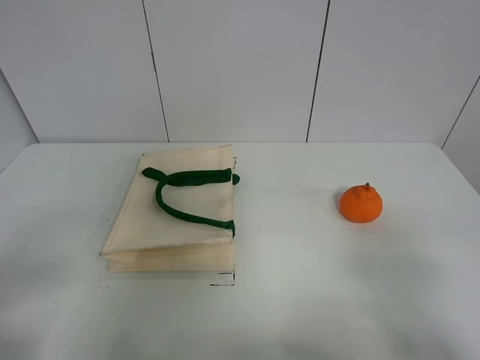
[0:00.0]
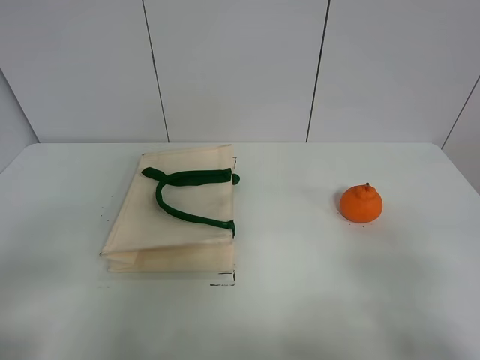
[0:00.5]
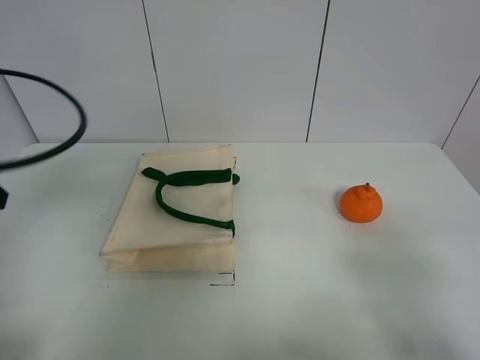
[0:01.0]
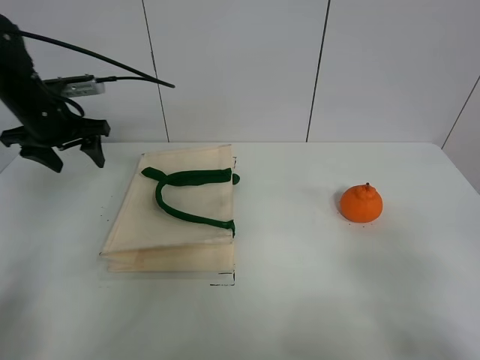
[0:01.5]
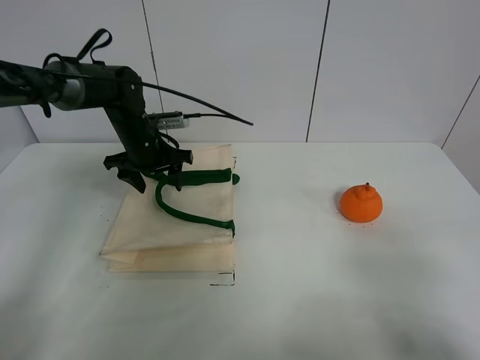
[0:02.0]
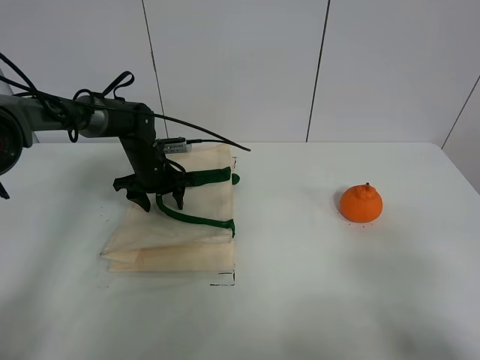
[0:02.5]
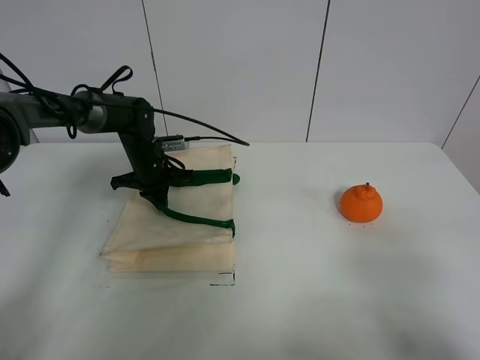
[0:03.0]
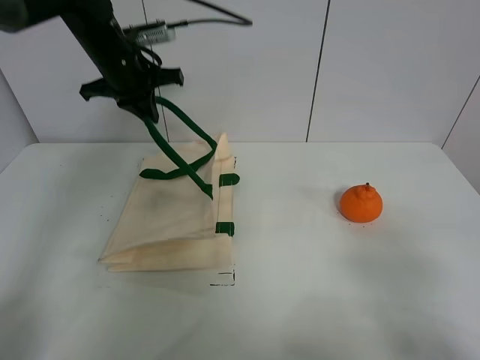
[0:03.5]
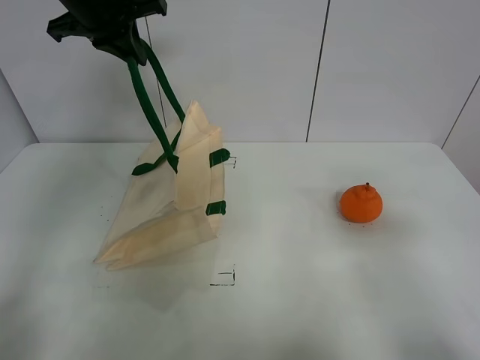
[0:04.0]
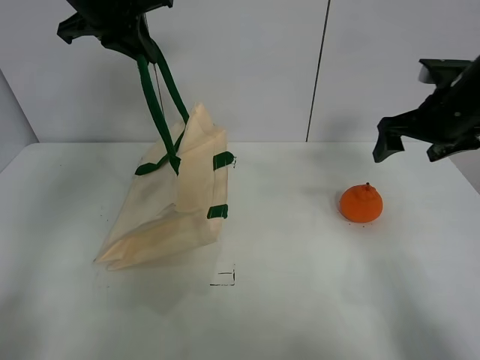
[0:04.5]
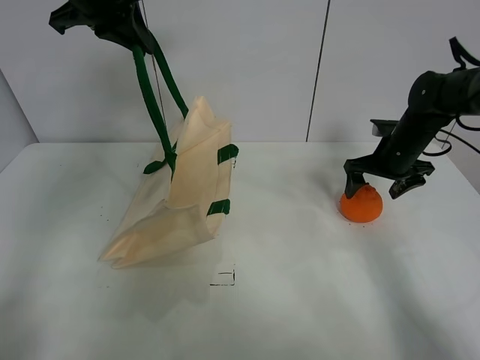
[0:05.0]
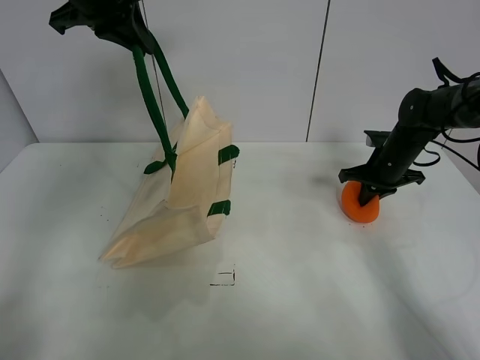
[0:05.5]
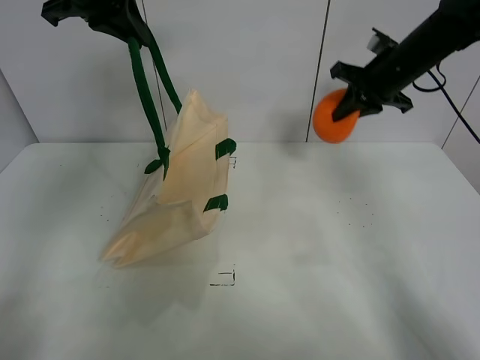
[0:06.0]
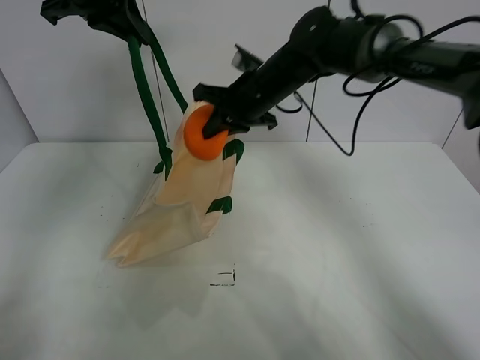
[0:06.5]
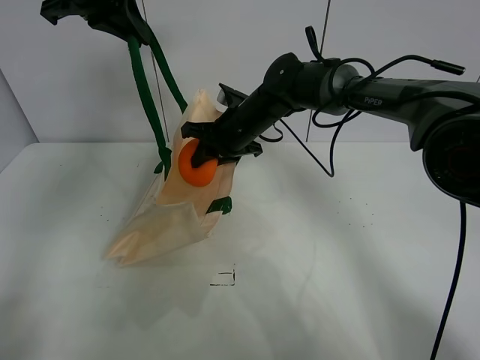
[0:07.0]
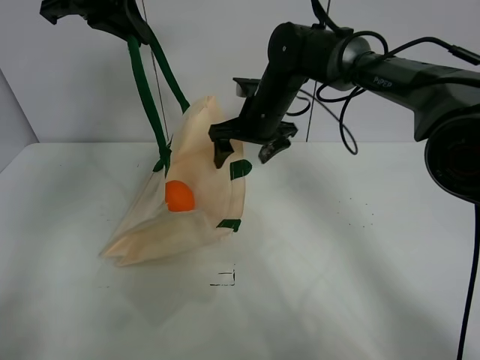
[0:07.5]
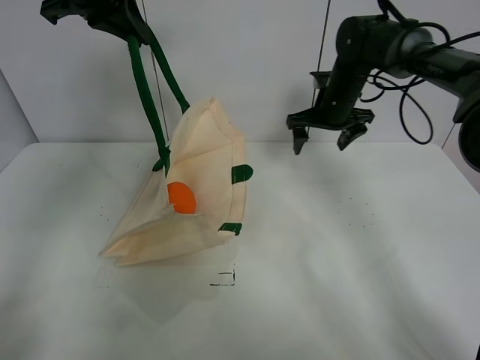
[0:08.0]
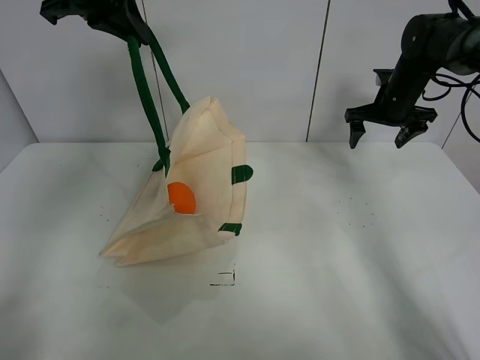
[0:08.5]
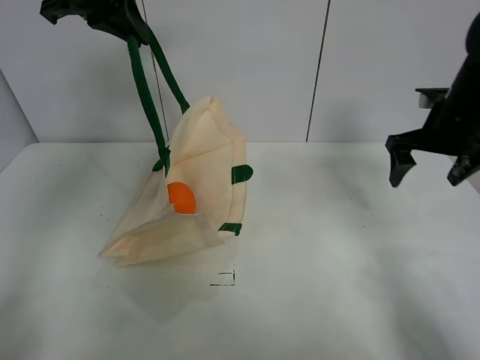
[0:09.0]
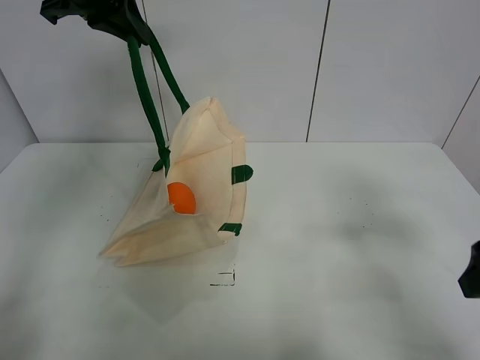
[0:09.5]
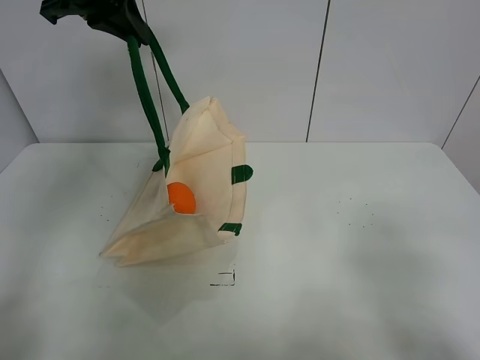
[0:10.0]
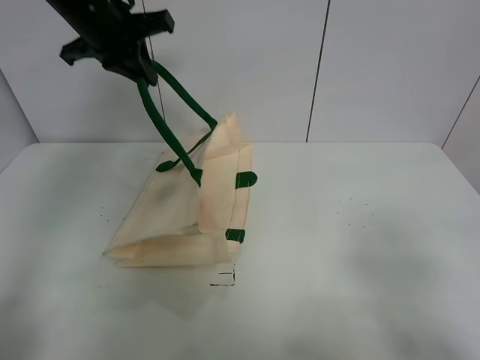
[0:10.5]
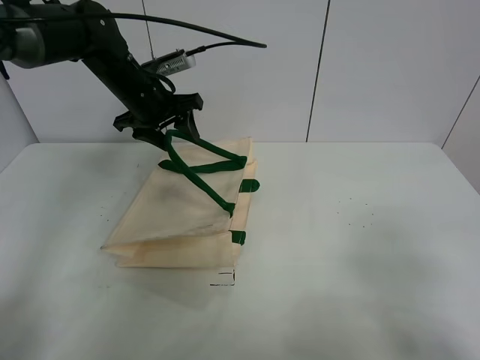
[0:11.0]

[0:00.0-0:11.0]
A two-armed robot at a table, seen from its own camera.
Task of the whole recording: open the white linen bag and put the orange in the bag.
Step, 0:00.0 to 0:03.5: Lift the handbag with left gripper.
Step, 0:04.0 to 0:05.0: Grasp the orange with right gripper.
Step, 0:05.5 to 0:07.0: Place the orange in the handbag with right gripper.
0:00.0 to 0:02.0: The left gripper shifts roughly 40 cm forward.
0:02.0 to 0:03.5: The left gripper is displaced upward by some 15 cm, and closes up.
0:03.5 to 0:05.5: The left gripper shifts some 10 cm upward. The right gripper is displaced forward by roughly 40 cm, and closes.
0:05.5 to 0:07.5: The right gripper is displaced to the left and upward by roughly 25 cm, and opens its fingers.
0:07.5 to 0:09.0: The right gripper goes about 25 cm to the right.
0:09.0 to 0:11.0: The right gripper goes approximately 35 cm backward. Meanwhile the left gripper shifts about 15 cm downward, and opens up.

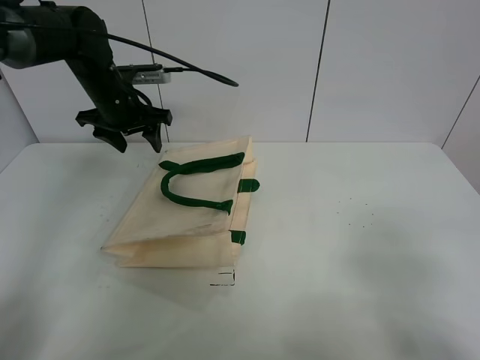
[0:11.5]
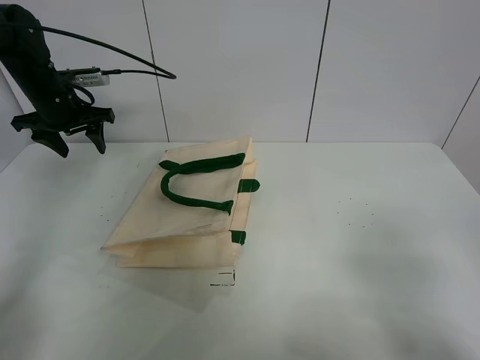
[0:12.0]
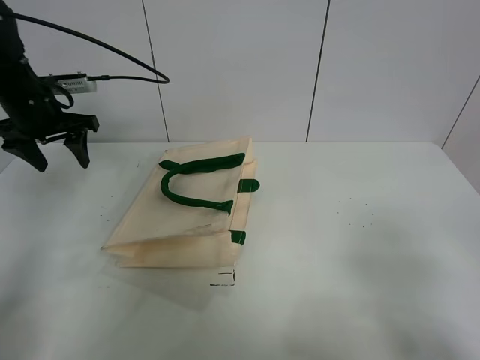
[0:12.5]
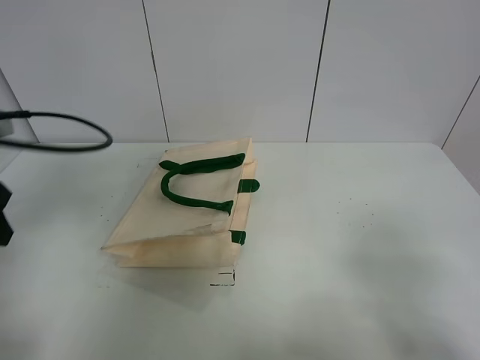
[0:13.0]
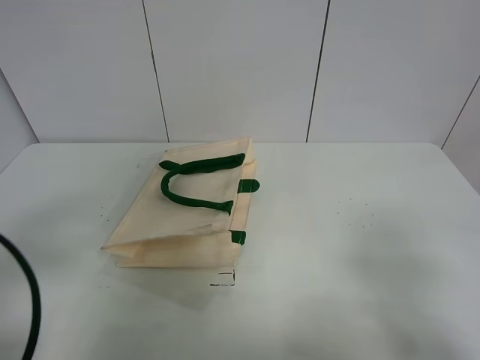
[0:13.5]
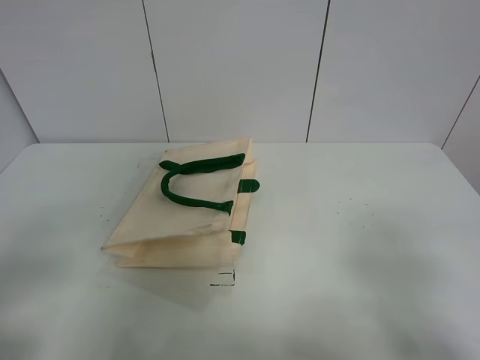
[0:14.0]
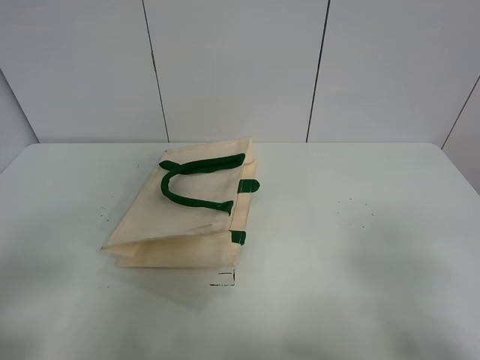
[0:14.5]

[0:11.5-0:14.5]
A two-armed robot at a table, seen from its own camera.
Task of the whole recording: open the white linen bag and put the orange in the bag.
0:11.5 to 0:13.0: The left gripper travels backward by roughly 25 cm.
0:13.0 to 0:14.5: The left gripper shifts approximately 20 cm backward.

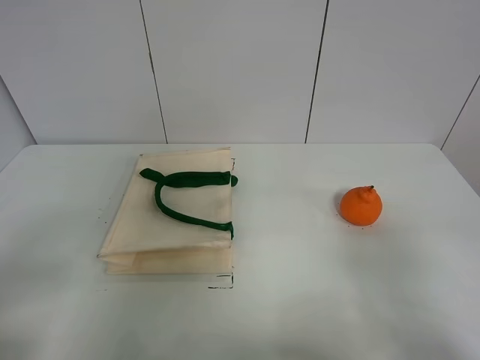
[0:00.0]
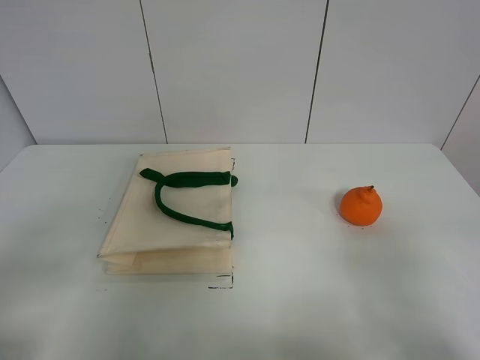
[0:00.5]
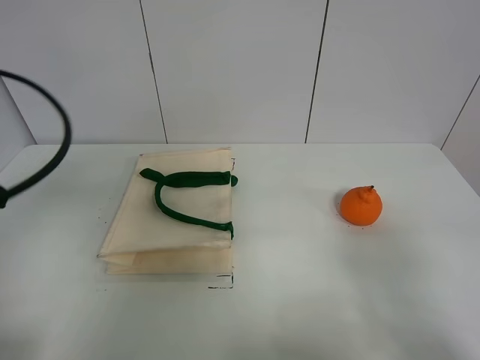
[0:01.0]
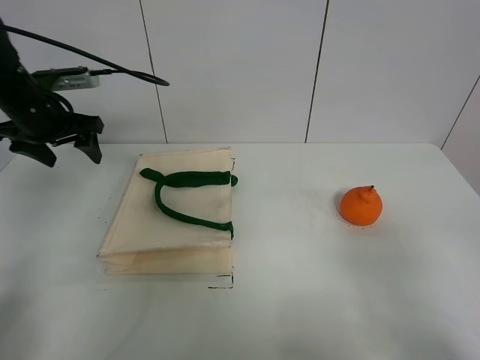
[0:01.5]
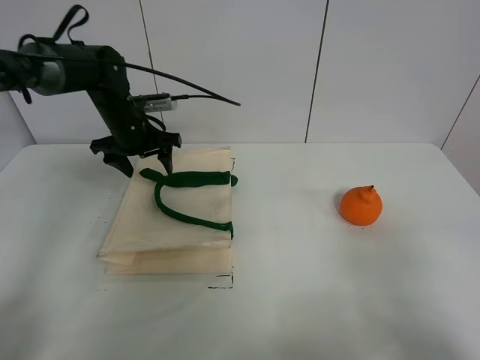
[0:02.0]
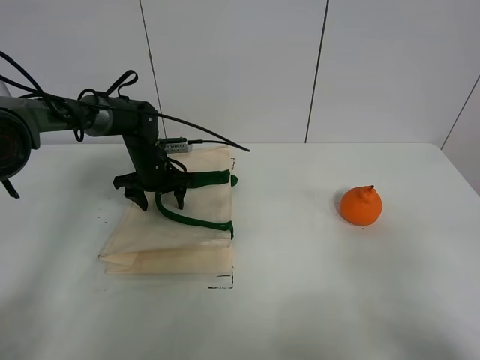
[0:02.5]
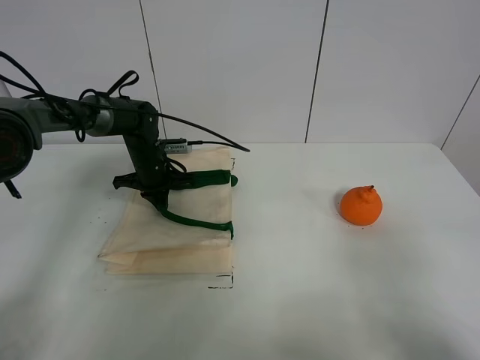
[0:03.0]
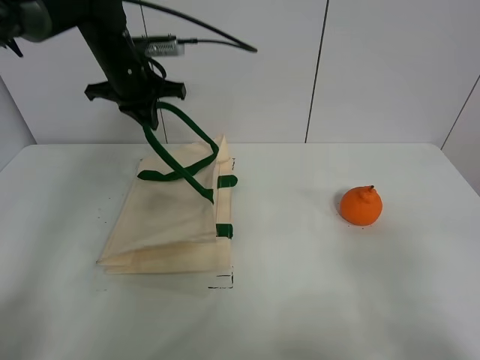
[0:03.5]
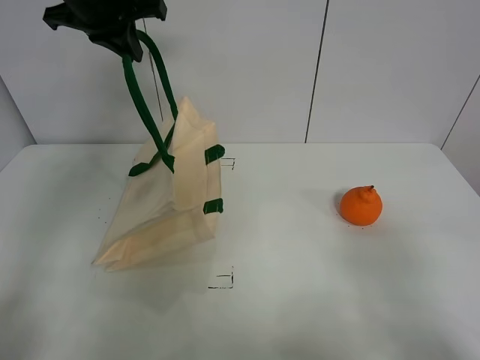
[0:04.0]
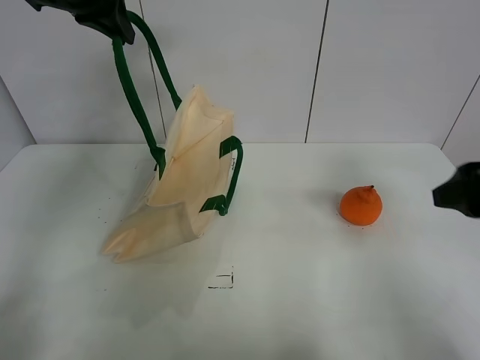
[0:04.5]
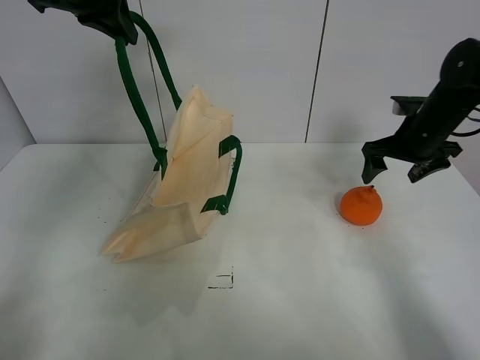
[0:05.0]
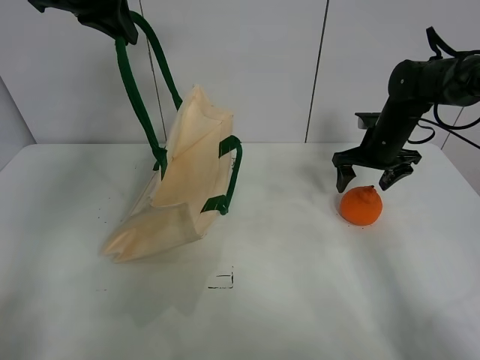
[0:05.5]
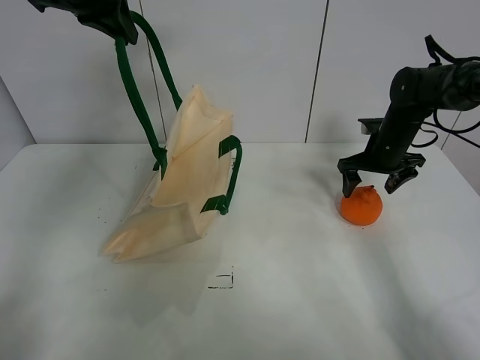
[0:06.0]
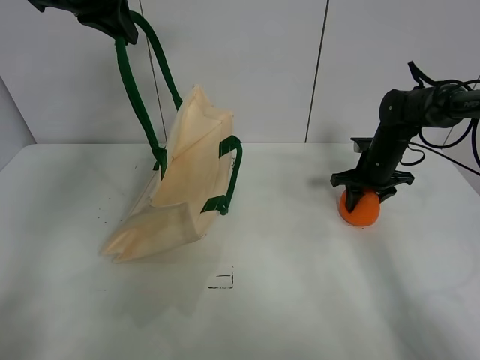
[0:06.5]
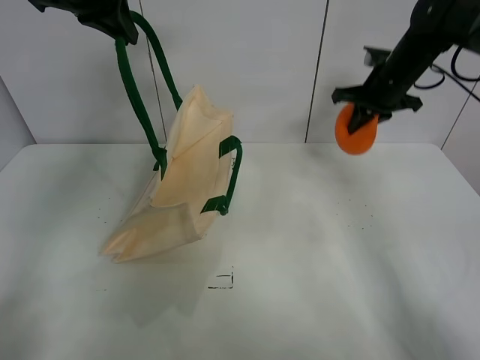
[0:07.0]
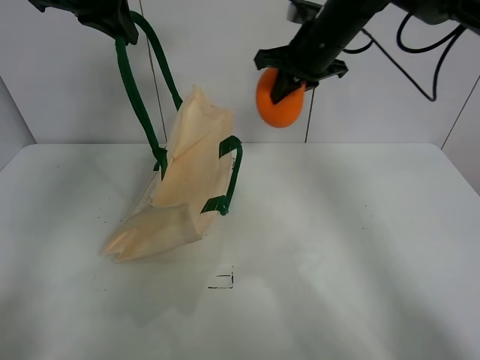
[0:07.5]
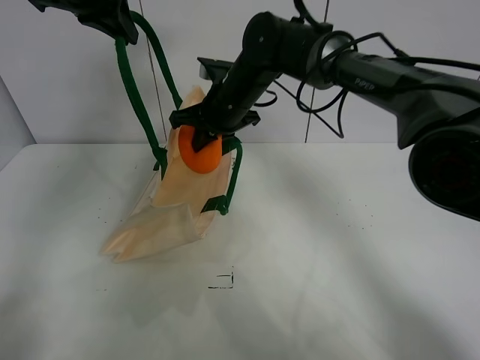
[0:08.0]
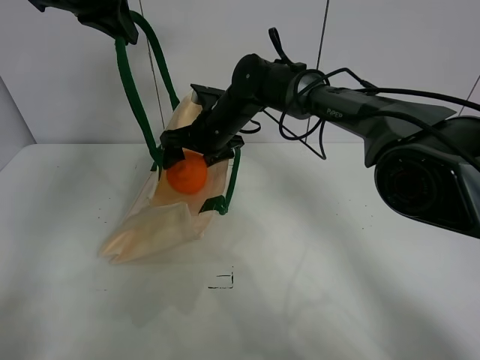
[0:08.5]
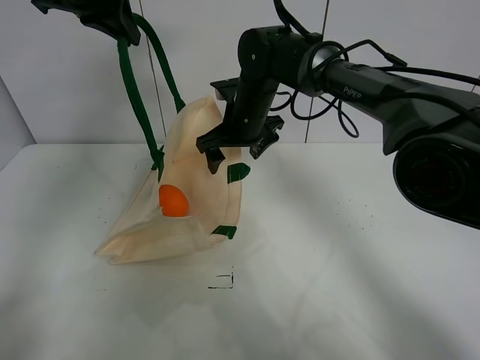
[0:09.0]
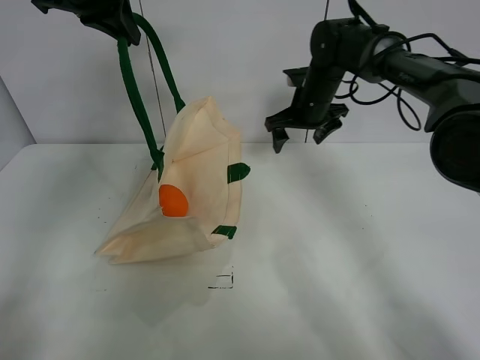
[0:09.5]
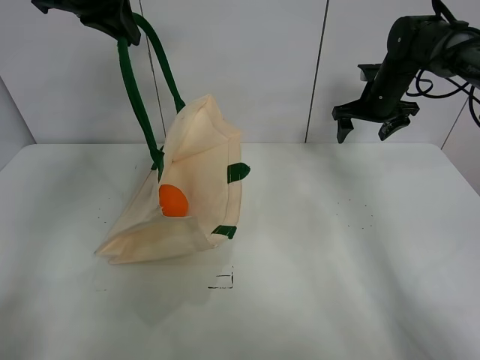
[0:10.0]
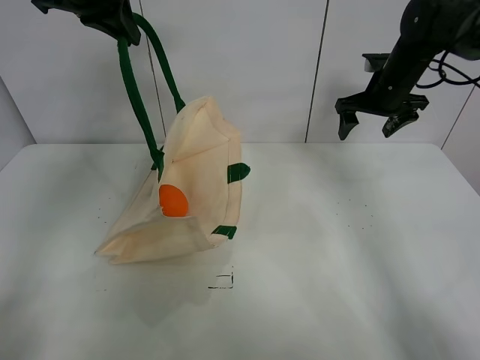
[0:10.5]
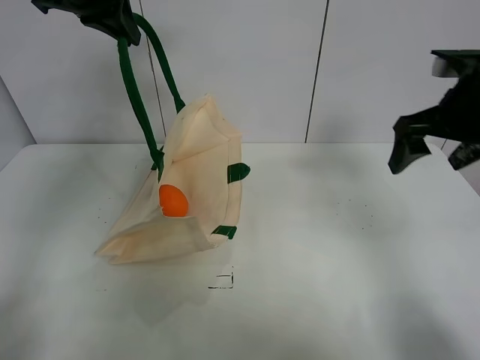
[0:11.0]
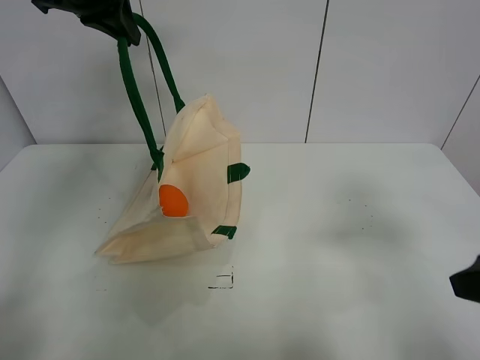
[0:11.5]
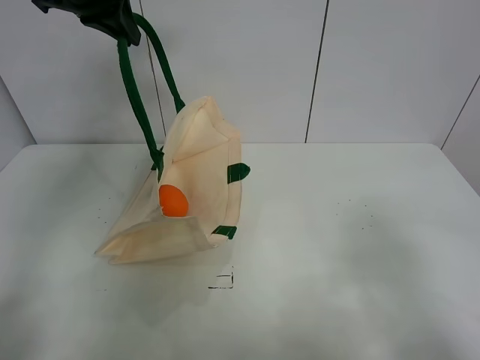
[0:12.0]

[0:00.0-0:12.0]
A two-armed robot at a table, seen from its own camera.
Task of the whole recording: open the white linen bag and put the orange in the bag.
Step, 0:00.0 to 0:04.0: Lift the handbag with left gripper.
Step, 0:04.5 to 0:06.0: Grasp the orange with right gripper.
Step, 0:06.5 to 0:08.5: Place the orange in the handbag with right gripper.
0:00.0 to 0:02.0: The left gripper moves forward, roughly 40 cm.
0:02.0 to 0:04.0: The left gripper goes some 20 cm upward, and closes.
0:04.0 to 0:06.0: The right gripper goes some 40 cm forward.
0:06.0 to 0:08.0: The right gripper is displaced to the left by some 25 cm, and closes.
0:08.0 to 0:10.0: The right gripper is displaced to the right by approximately 25 cm, and opens its fingers.
0:10.0 to 0:12.0: The right gripper moves backward, roughly 50 cm.
